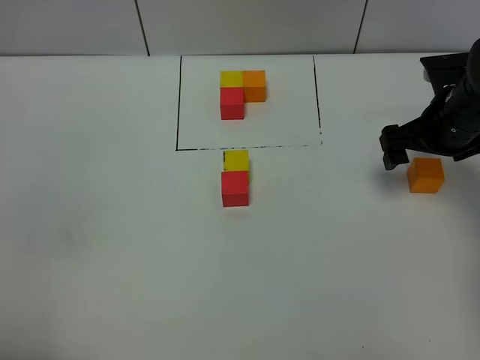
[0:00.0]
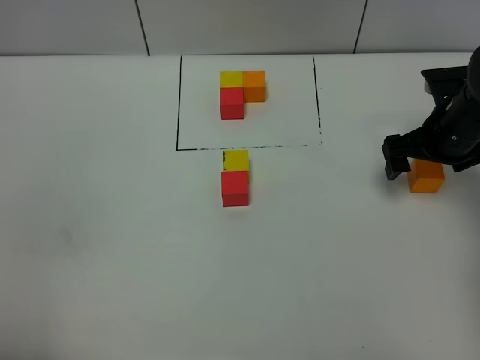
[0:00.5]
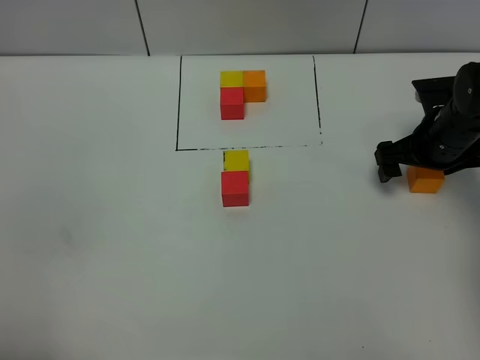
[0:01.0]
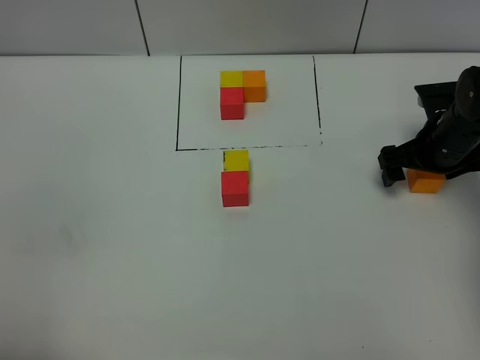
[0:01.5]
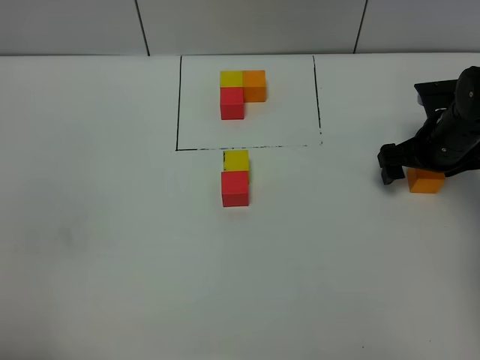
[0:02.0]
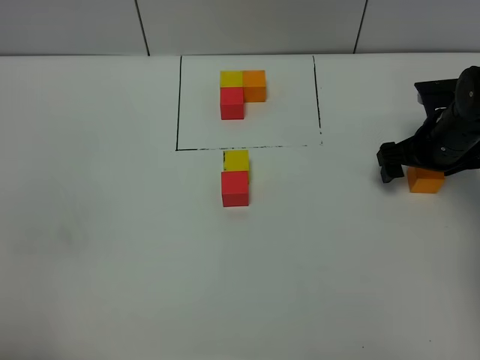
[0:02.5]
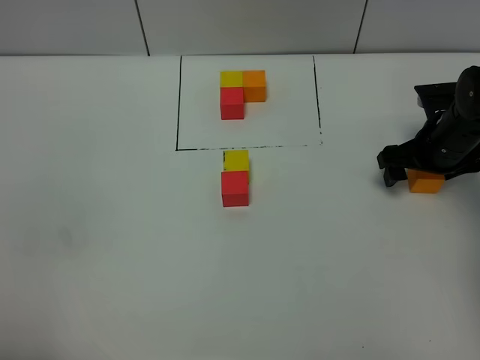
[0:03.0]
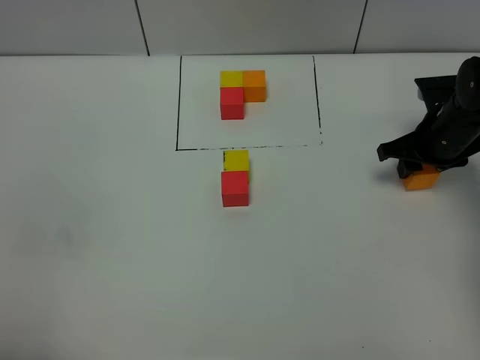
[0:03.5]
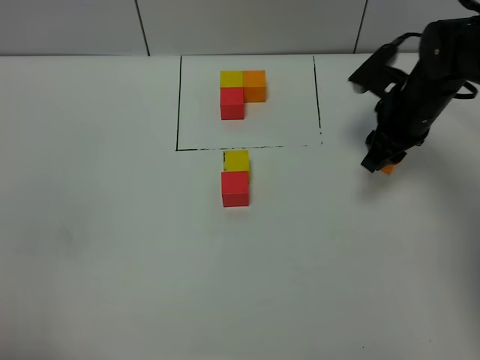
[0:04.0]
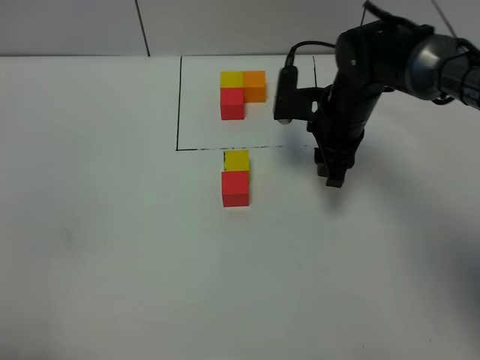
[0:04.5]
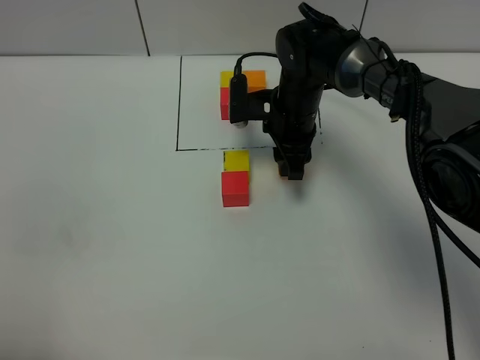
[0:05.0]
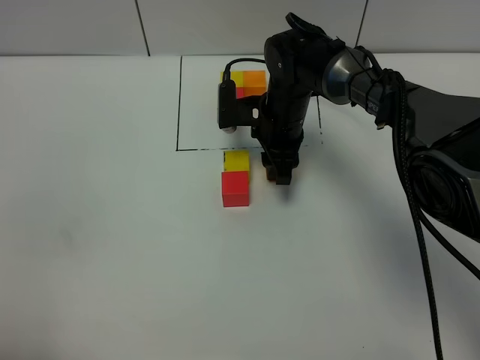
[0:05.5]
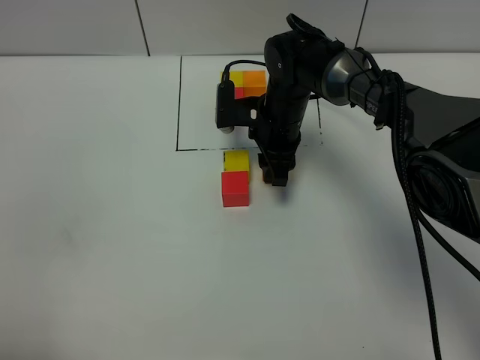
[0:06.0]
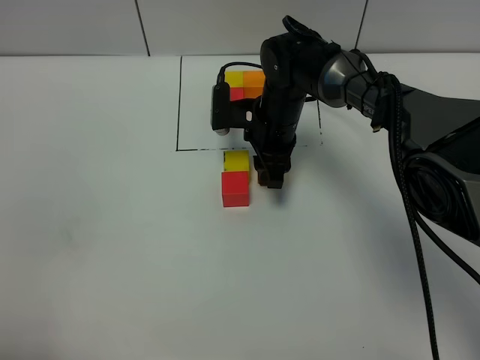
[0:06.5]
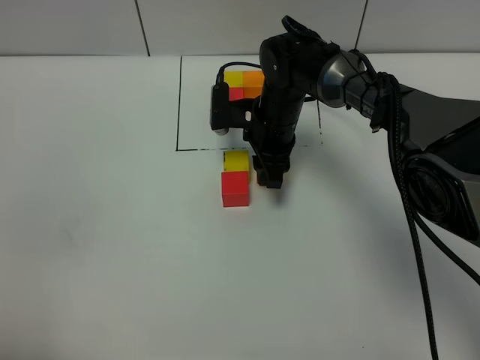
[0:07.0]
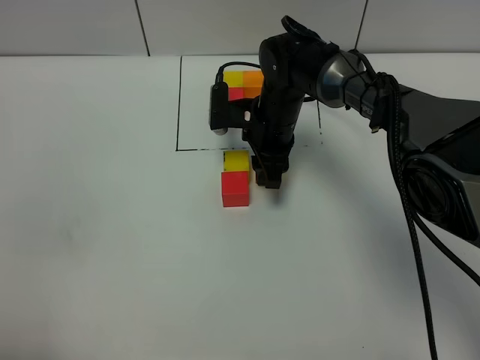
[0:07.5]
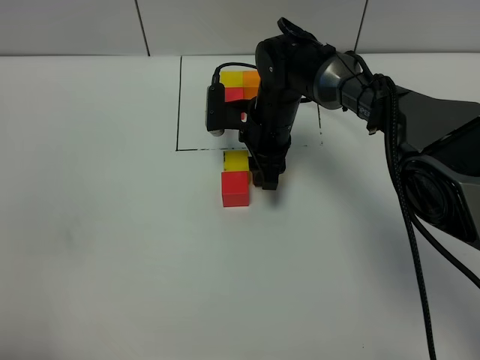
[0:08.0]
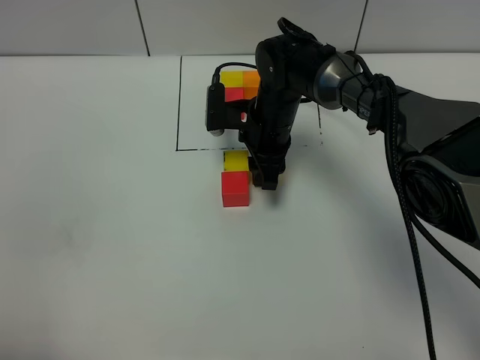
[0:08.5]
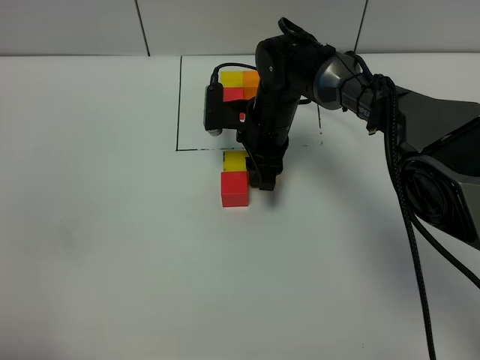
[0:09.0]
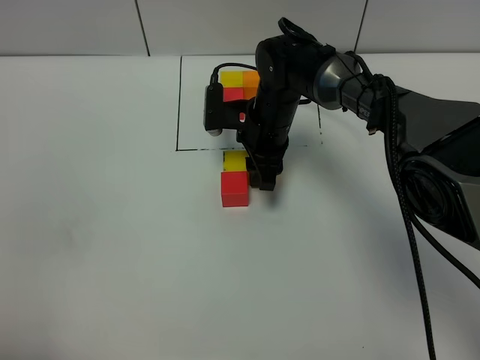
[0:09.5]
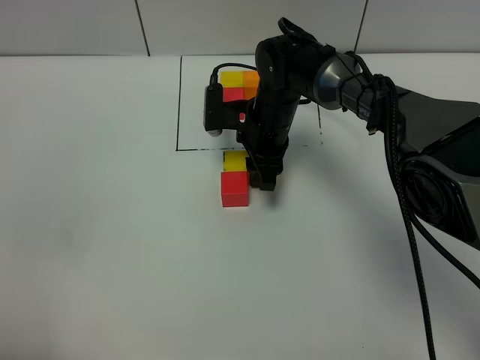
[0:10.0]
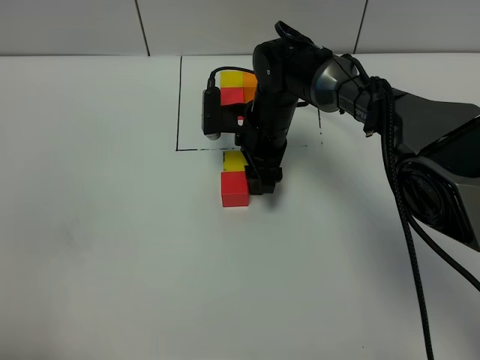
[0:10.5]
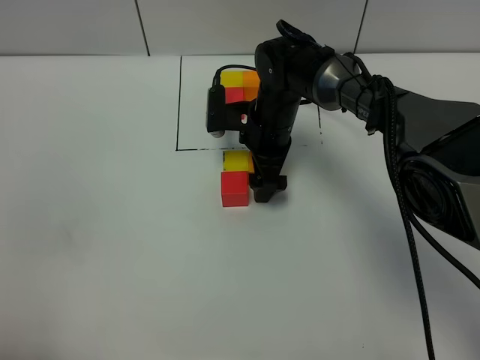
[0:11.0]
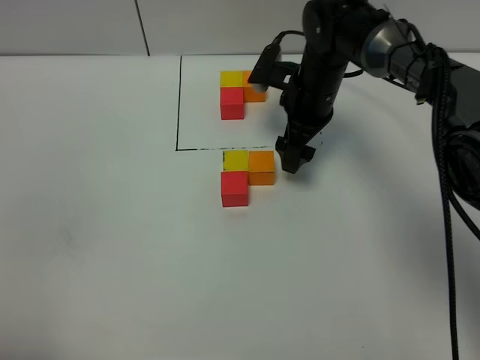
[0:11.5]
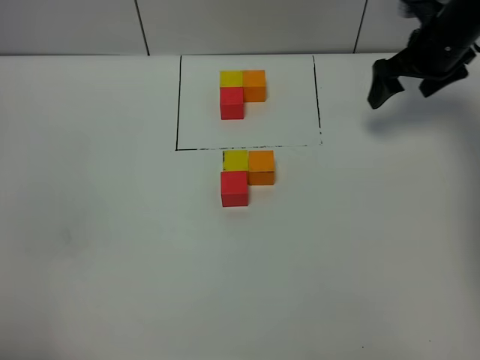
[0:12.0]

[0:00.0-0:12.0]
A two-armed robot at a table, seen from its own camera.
Task of the whole recording: According to the building block template in front, assemble the scattered blocks together.
Step, 0:00.0 to 0:11.0: Put the orange build block on the right of the yellow build block.
0:00.0 to 0:02.0: The right gripper heads downward, covering about 5 cm.
0:02.0 to 0:04.0: The right gripper travels to the left by roughly 5 cm, and closes its fingers.
0:04.0 to 0:06.0: The right gripper goes some 15 cm to the left.
0:06.0 to 0:08.0: The two grippers keep their place.
0:08.0 to 0:10.0: The two grippers keep their place.
0:10.0 to 0:12.0: The right gripper heads to the right, covering approximately 25 cm, and opens its fingers.

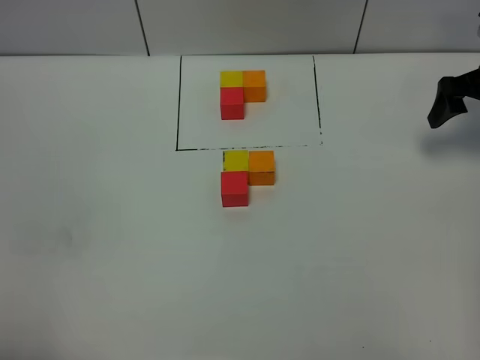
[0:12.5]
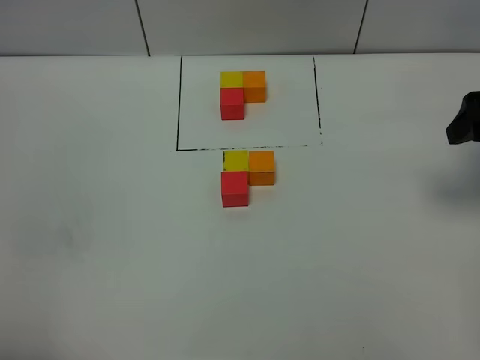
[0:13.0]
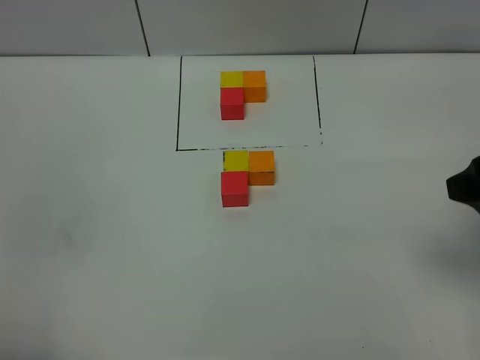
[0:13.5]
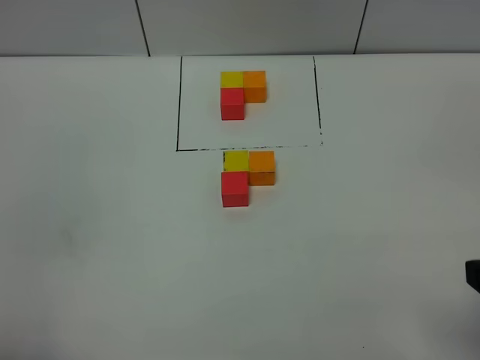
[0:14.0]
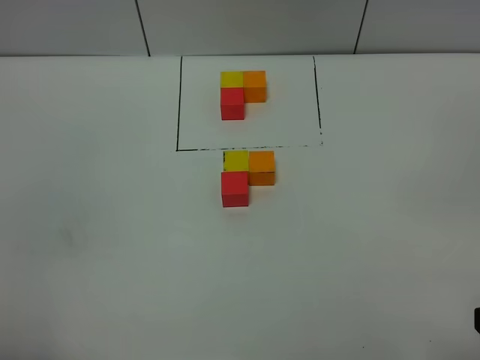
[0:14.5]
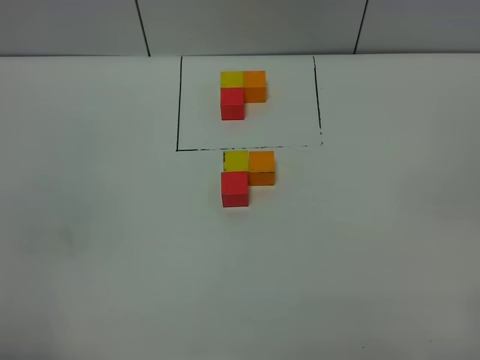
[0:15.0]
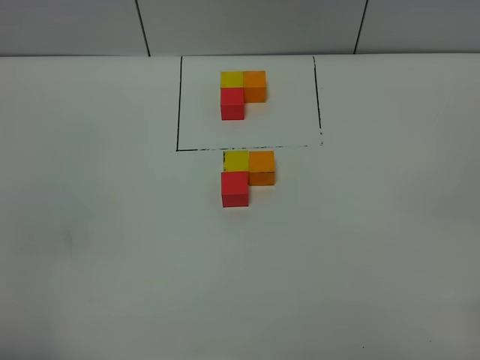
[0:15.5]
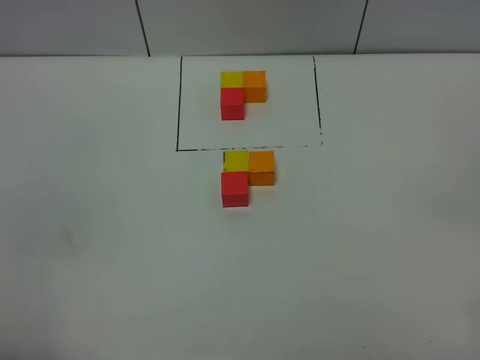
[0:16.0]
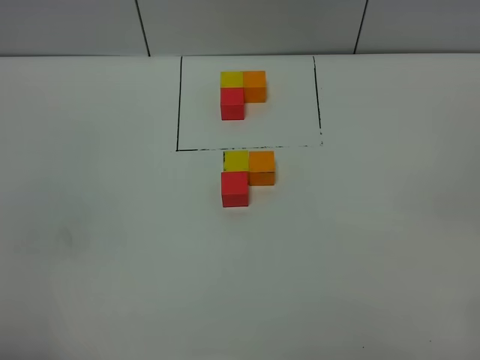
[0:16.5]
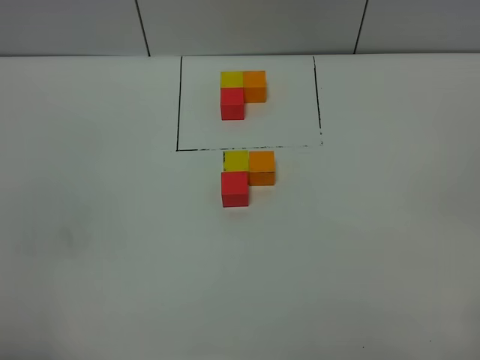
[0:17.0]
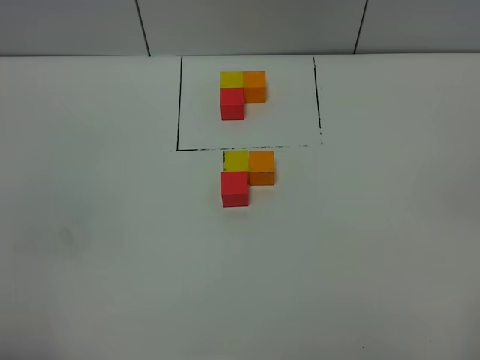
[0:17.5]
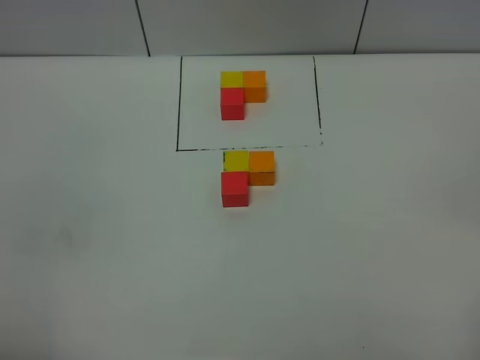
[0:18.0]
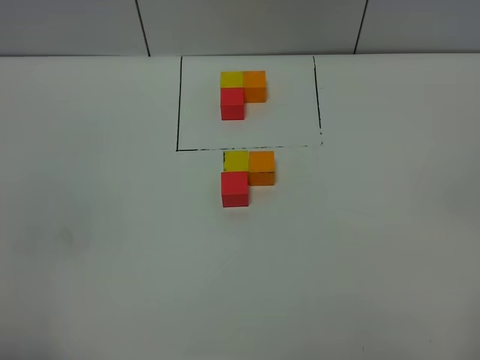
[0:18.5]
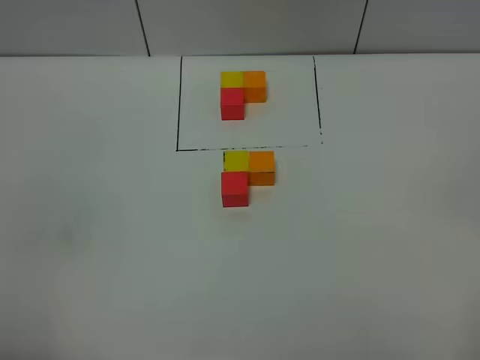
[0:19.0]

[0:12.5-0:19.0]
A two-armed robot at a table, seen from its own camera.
Task of the whole recording: According to the building block template in front, assemble the scattered blocks together.
0:12.5 to 0:14.5: The right gripper heads backward, covering about 35 cm.

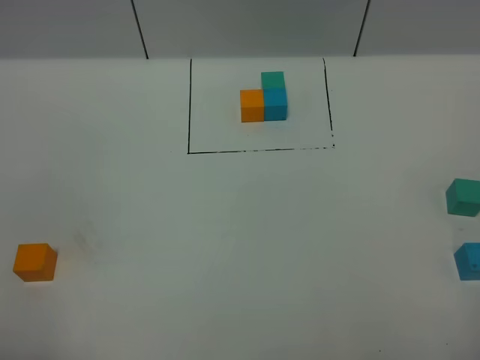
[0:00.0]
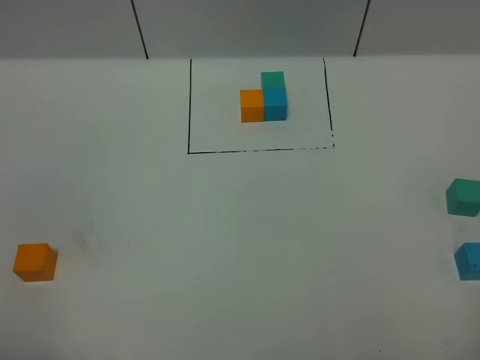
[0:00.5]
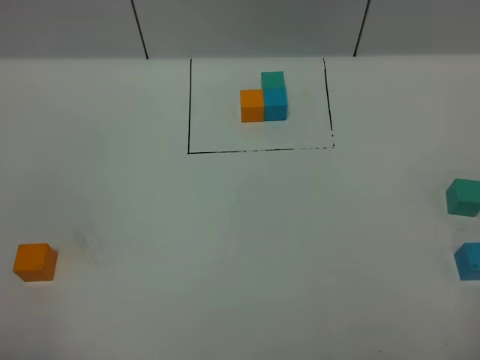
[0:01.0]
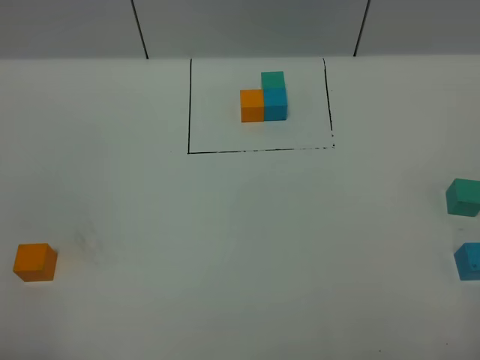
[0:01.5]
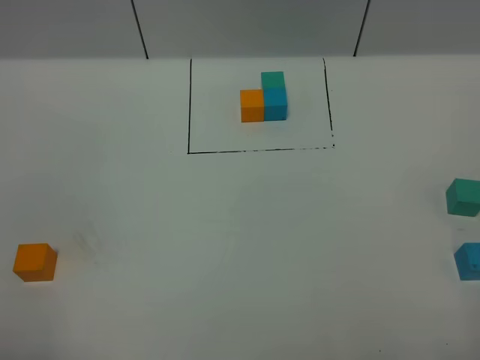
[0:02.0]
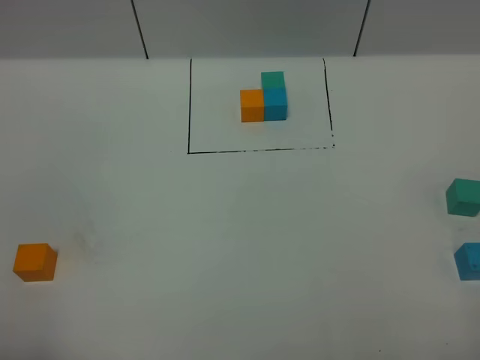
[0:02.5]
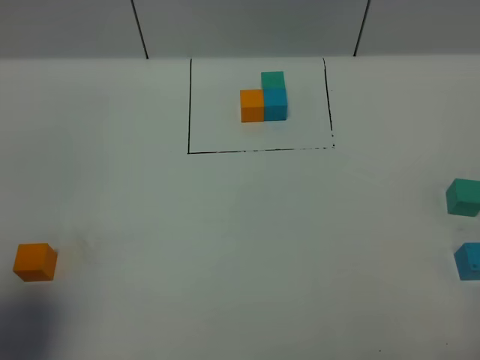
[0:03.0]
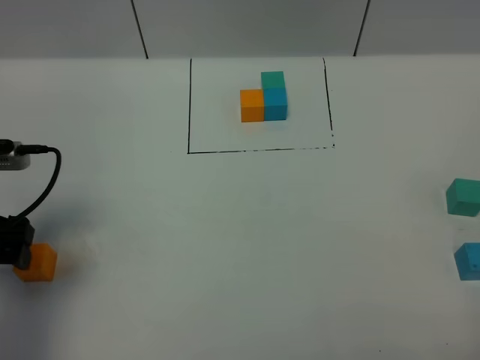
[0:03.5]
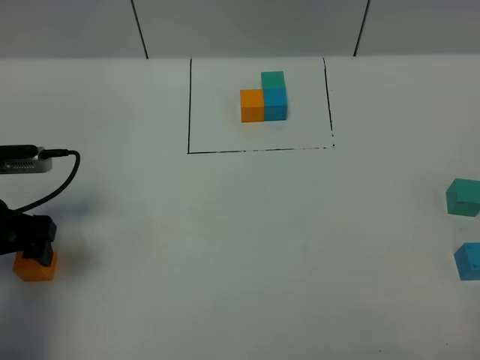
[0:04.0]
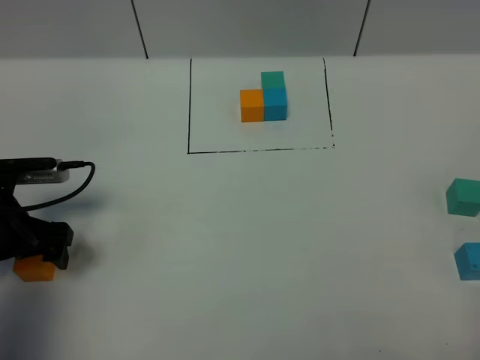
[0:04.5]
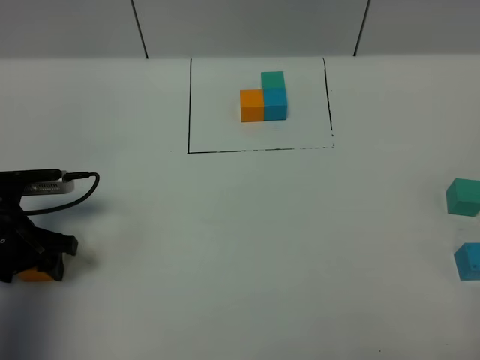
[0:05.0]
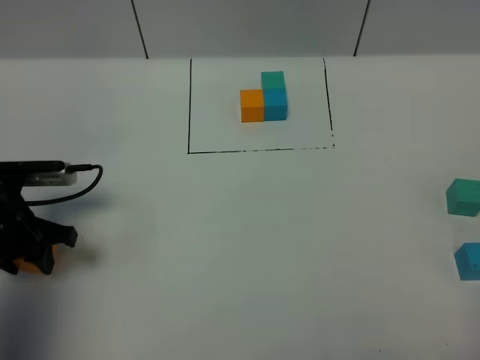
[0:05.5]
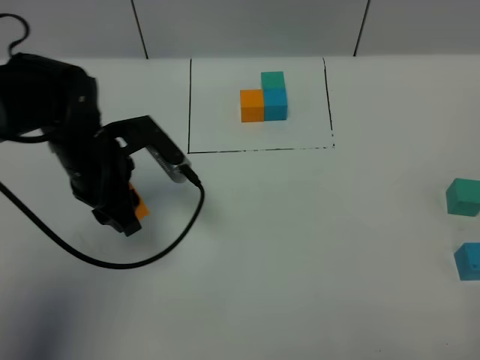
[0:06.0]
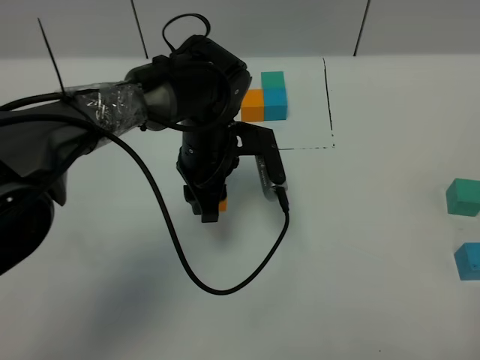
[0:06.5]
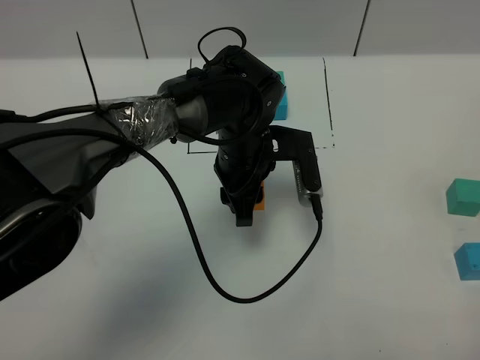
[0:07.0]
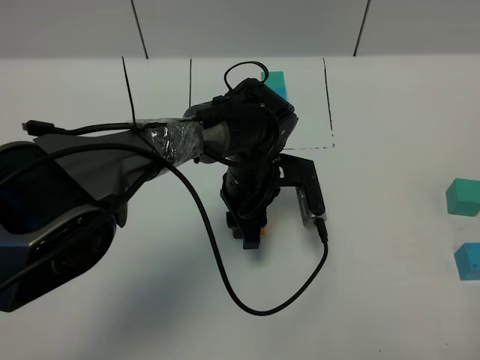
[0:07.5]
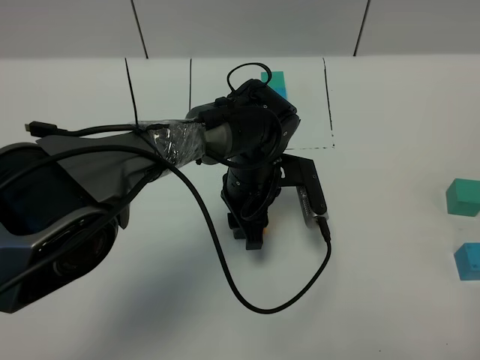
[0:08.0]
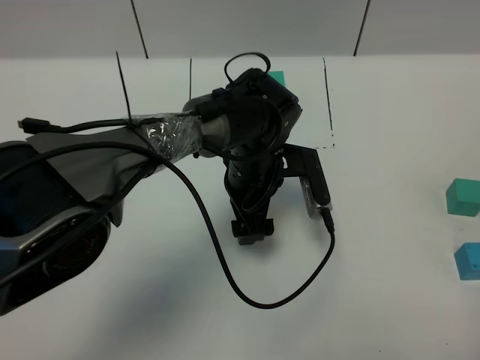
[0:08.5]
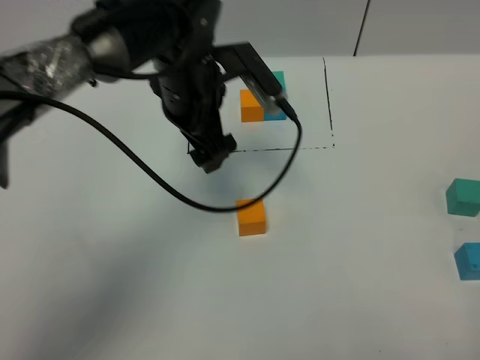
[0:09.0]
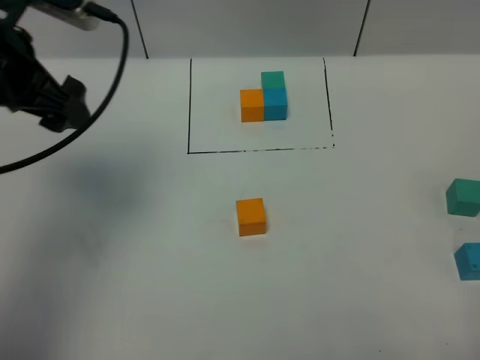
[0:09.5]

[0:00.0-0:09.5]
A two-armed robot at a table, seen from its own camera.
Task of the whole recording: According to the building block template in front, assemble the scattered blocks together.
Step, 0:00.0 to 0:08.0: Put the orange build block in the center of the table.
0:00.0 to 0:02.0: The two grippers keep their place.
0:02.0 to 0:04.0: The left gripper heads forward and downward, covering approximately 30 cm.
0:04.0 to 0:05.5: The left gripper closes its fingers.
0:05.5 to 0:07.5: The left gripper moves to the right, about 30 cm.
0:07.5 to 0:09.5: The left gripper travels to the left and upward by about 35 cm, and opens.
